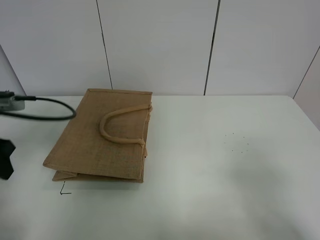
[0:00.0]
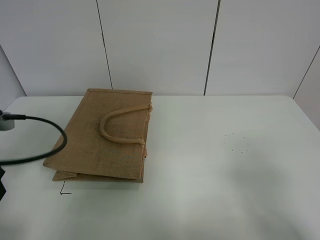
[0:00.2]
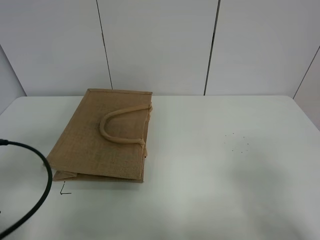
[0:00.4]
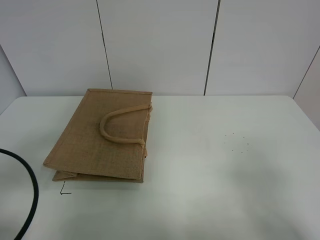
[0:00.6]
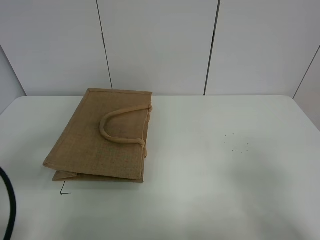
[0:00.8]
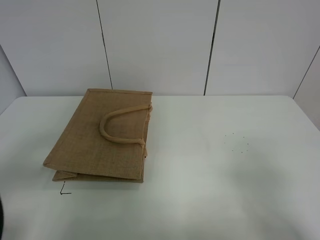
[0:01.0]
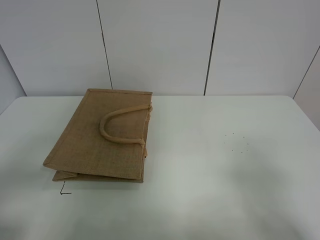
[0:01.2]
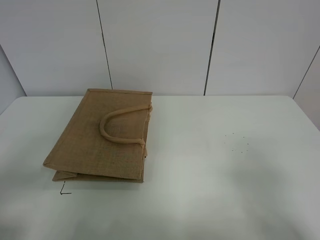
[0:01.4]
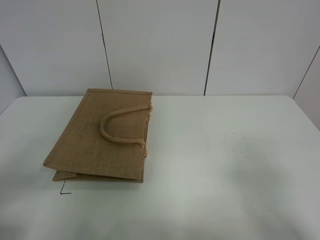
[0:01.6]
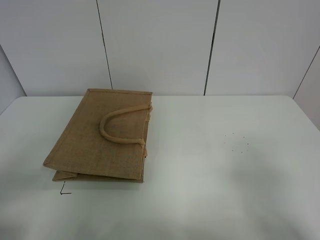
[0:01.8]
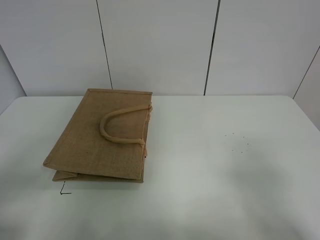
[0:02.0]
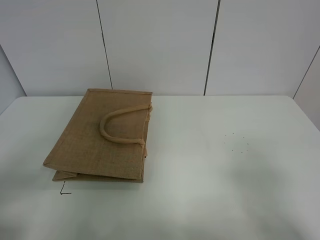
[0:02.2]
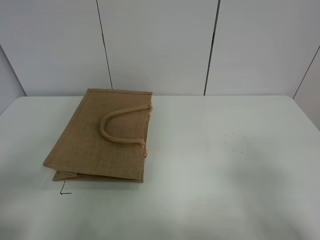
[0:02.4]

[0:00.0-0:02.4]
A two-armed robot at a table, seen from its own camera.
Task of the whole recording: open the brown linen bag and put the peach in the bag.
0:00.0 to 0:01.2: The left gripper travels backward by about 15 cm.

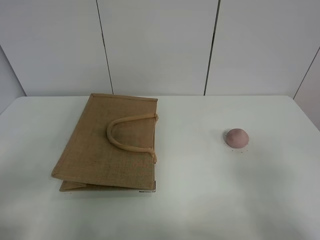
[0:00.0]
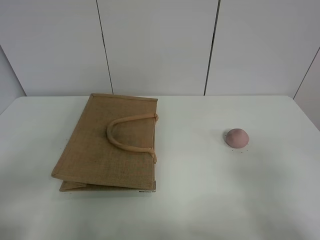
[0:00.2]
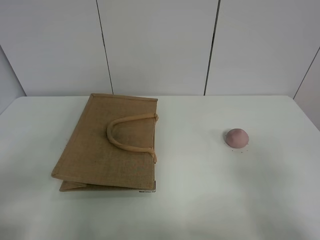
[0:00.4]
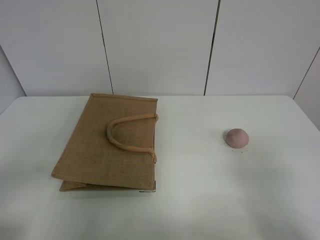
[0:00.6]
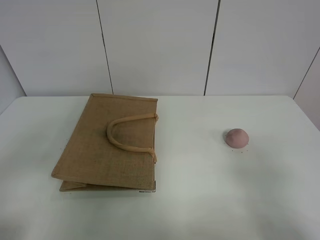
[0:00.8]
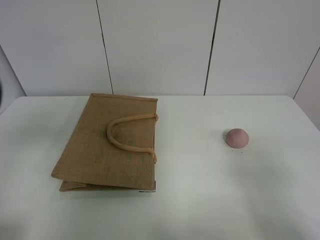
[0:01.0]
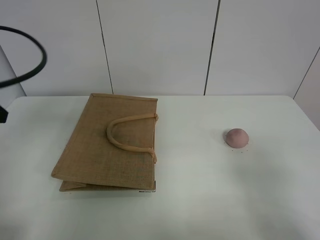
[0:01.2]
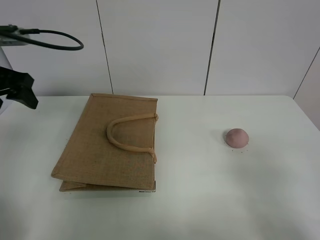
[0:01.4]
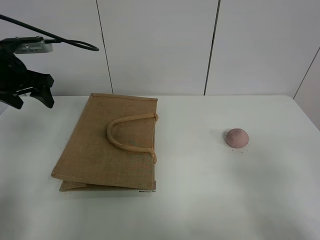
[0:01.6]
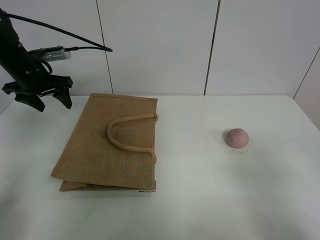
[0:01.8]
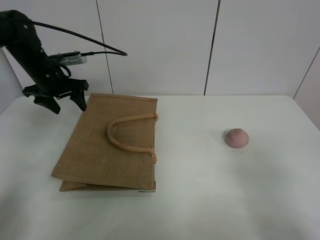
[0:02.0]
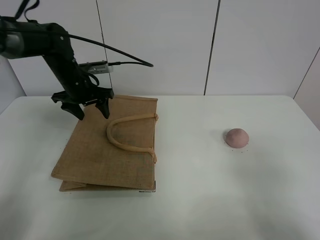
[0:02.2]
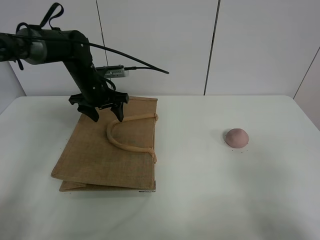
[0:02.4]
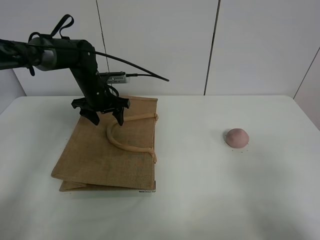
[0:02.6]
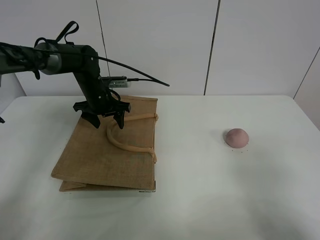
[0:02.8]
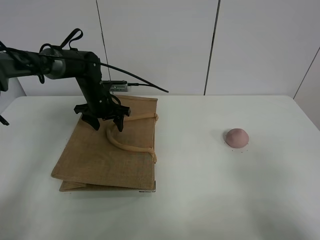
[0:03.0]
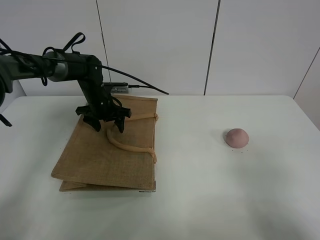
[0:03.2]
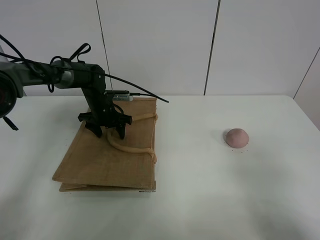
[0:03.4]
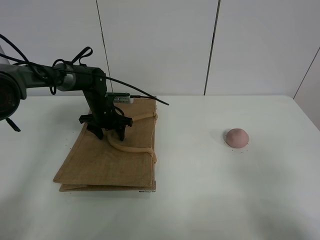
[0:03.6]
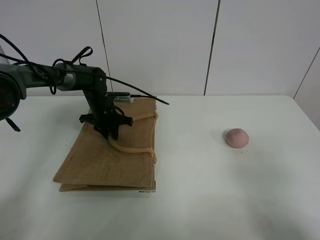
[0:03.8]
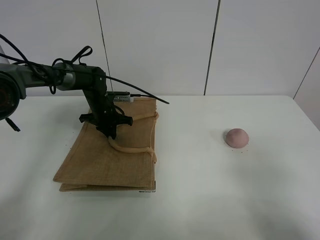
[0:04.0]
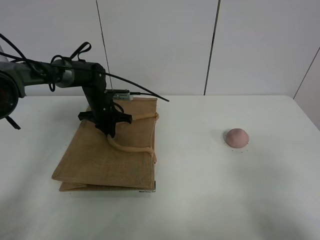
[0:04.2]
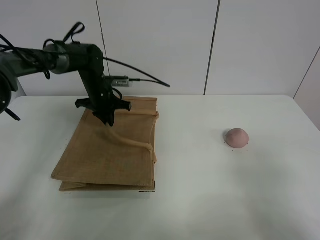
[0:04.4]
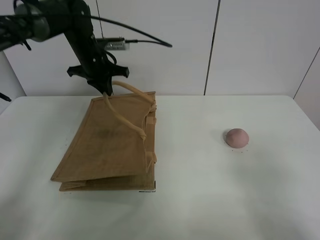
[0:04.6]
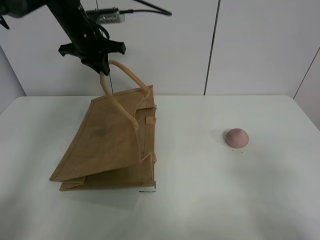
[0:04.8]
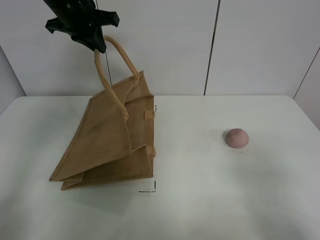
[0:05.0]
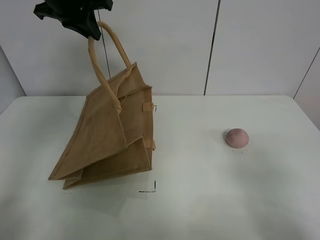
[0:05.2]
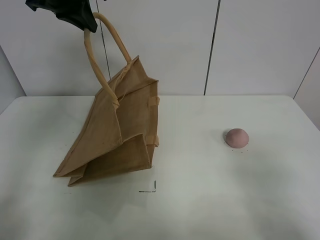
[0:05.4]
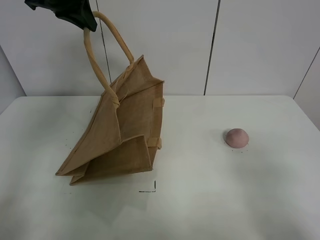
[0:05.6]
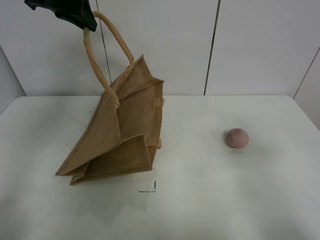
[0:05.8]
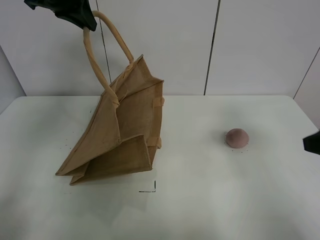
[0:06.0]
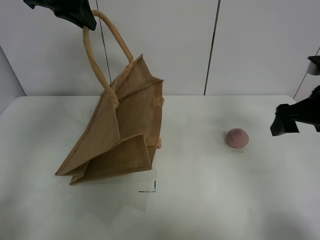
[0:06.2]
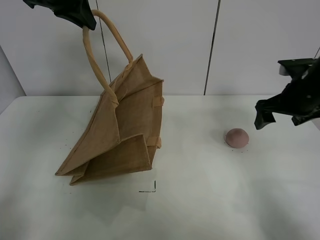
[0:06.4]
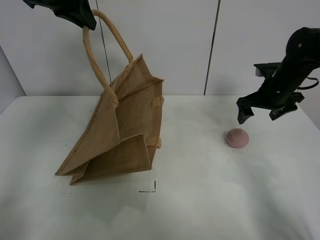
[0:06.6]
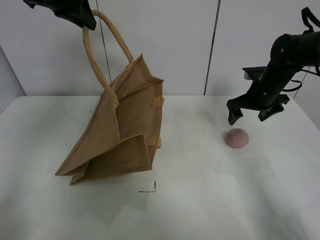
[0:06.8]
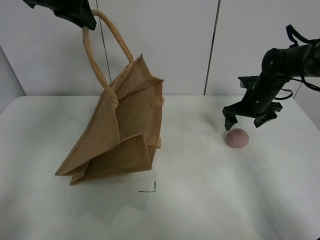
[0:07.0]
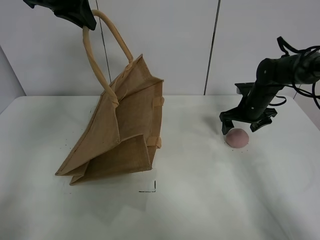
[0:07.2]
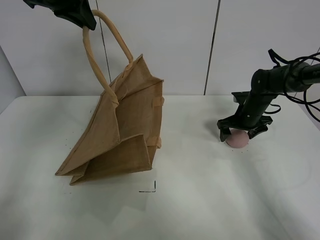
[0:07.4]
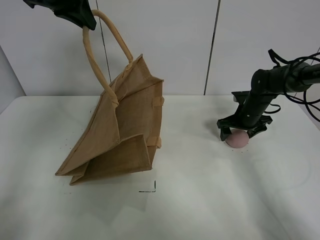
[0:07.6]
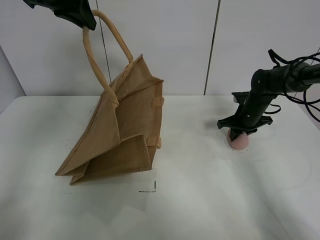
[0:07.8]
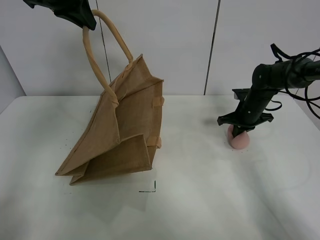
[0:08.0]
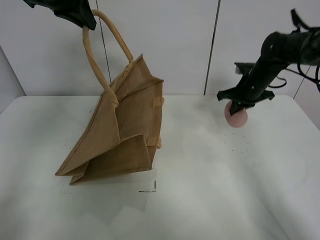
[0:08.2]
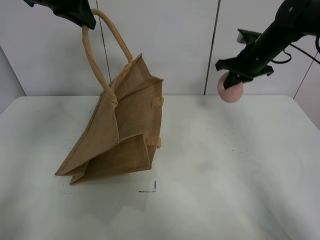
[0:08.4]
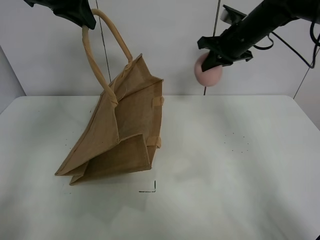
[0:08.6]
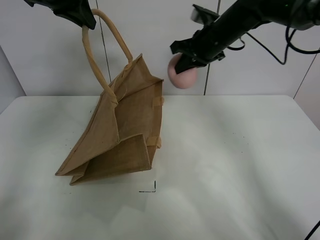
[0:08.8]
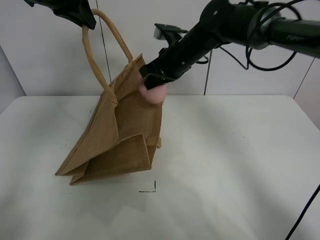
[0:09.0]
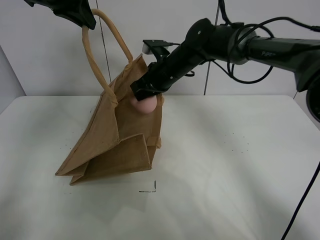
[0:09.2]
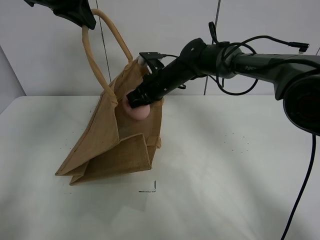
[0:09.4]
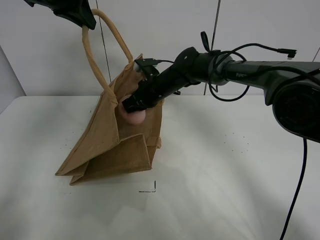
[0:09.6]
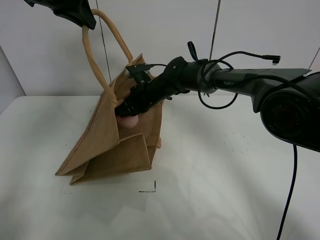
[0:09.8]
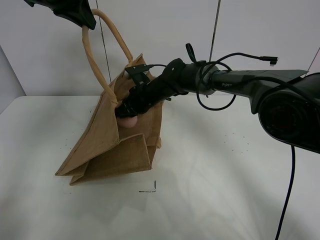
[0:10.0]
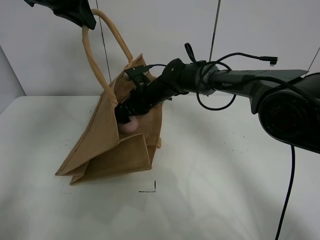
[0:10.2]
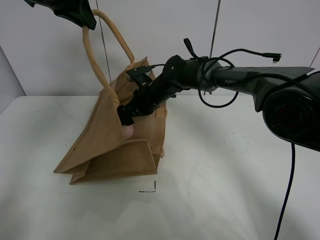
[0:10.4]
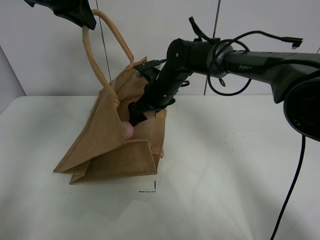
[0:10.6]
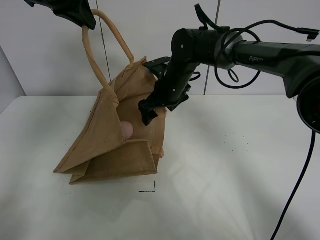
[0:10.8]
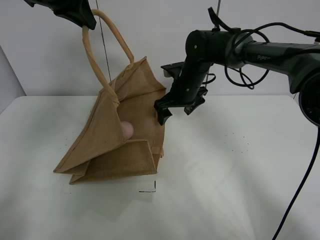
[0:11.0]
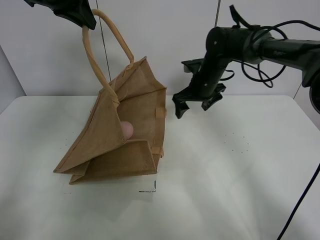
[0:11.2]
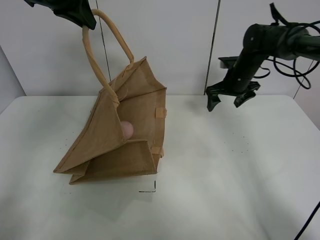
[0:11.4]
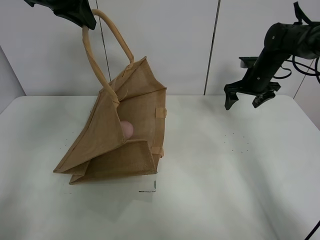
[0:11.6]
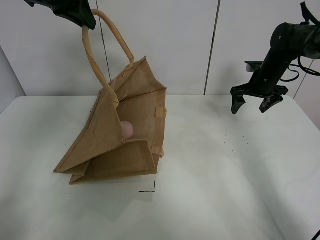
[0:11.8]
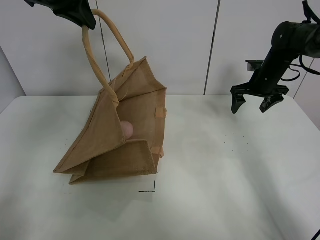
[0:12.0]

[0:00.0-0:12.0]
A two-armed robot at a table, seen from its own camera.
Task of the whole recording: open the brown linen bag and put the peach in the bag.
Step, 0:00.0 to 0:05.2: Lift the handbag with left gripper.
Step, 0:05.4 to 0:07.8: Grasp the peach with right gripper.
Step, 0:08.0 to 0:11.0: Place the peach in the handbag with right gripper.
0:00.0 to 0:01.6: The left gripper goes approximately 35 cm forward.
0:01.6 to 0:03.0: The left gripper travels downward, to the right and forward by approximately 20 cm.
0:03.0 to 0:04.4: The left gripper closes up.
0:04.4 to 0:06.0: The right gripper heads forward, covering approximately 15 cm. Meanwhile the left gripper goes approximately 25 cm upward.
0:06.0 to 0:07.6: The right gripper travels forward and downward by roughly 35 cm.
0:07.6 to 0:09.0: The right gripper moves to the left and upward, approximately 25 cm, and closes up.
0:09.0 to 0:10.4: The right gripper heads downward and to the left, covering some 10 cm, and opens its fingers.
0:10.4 to 0:12.0: The right gripper goes some 30 cm to the right.

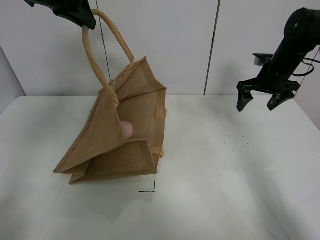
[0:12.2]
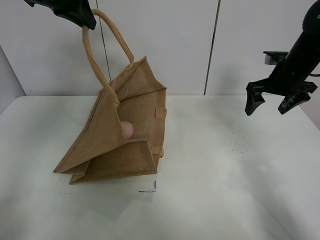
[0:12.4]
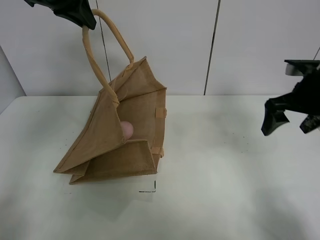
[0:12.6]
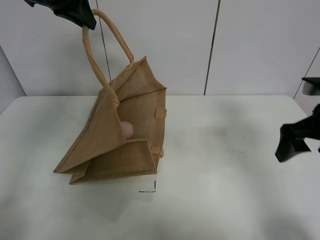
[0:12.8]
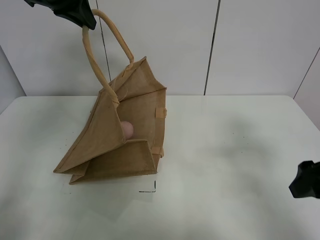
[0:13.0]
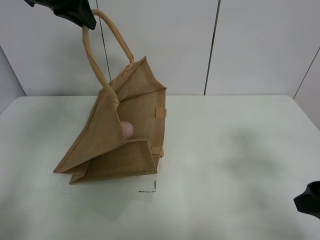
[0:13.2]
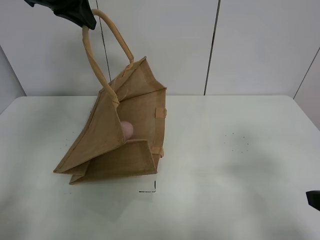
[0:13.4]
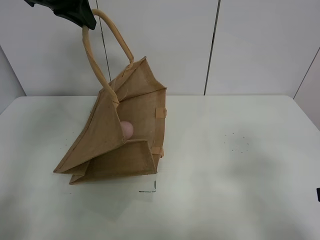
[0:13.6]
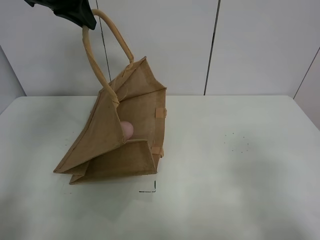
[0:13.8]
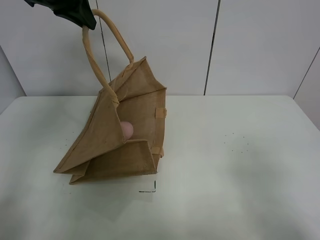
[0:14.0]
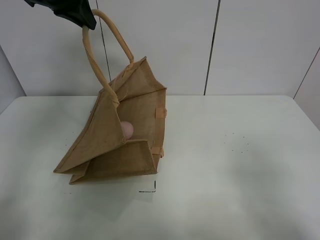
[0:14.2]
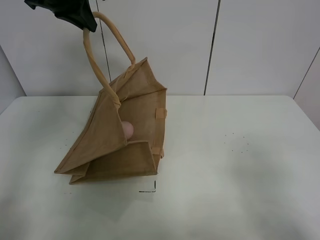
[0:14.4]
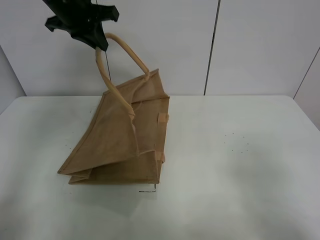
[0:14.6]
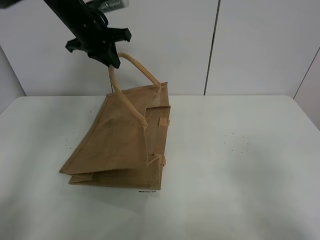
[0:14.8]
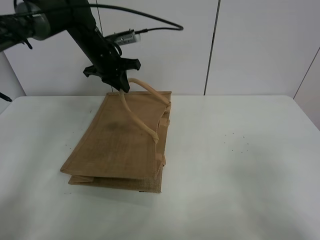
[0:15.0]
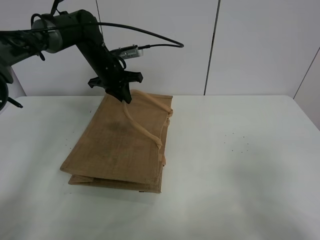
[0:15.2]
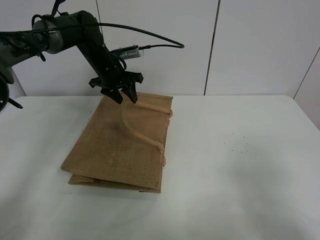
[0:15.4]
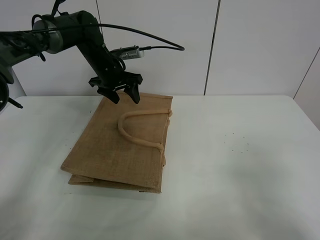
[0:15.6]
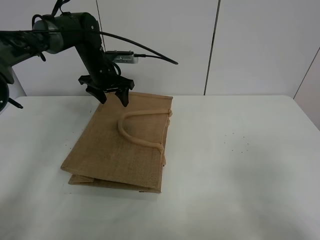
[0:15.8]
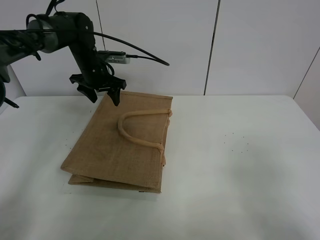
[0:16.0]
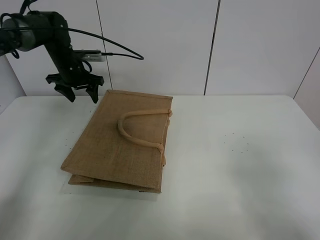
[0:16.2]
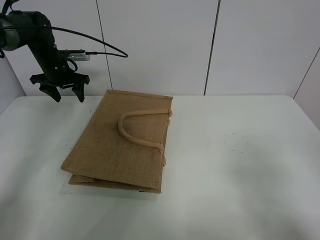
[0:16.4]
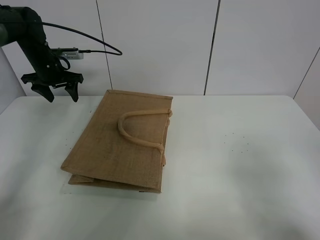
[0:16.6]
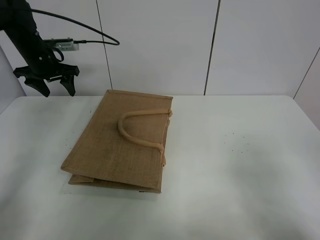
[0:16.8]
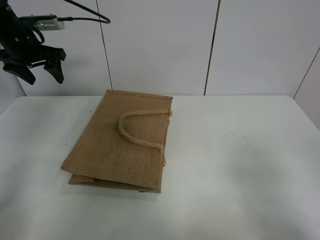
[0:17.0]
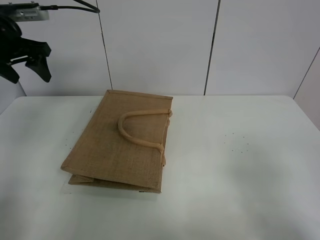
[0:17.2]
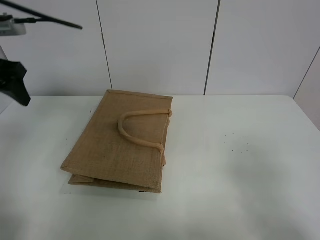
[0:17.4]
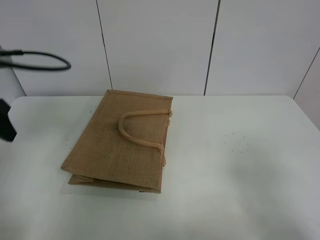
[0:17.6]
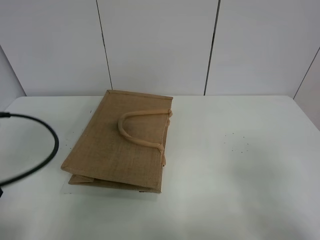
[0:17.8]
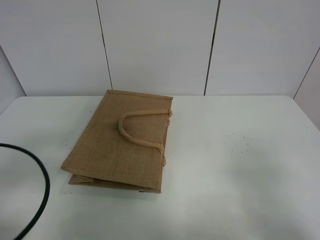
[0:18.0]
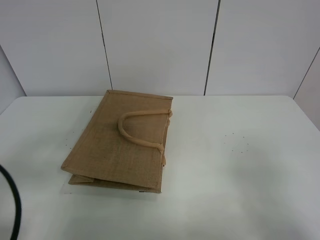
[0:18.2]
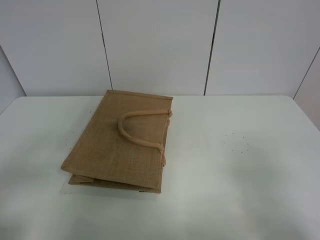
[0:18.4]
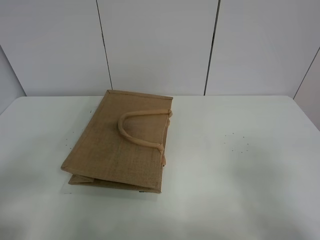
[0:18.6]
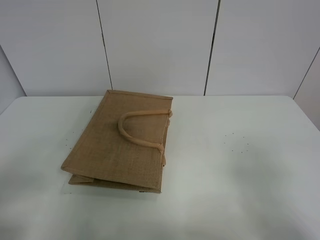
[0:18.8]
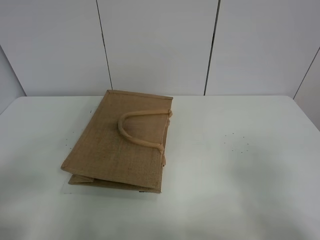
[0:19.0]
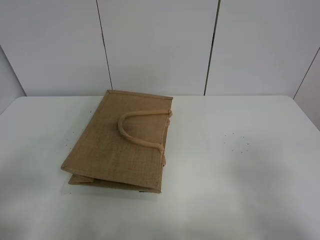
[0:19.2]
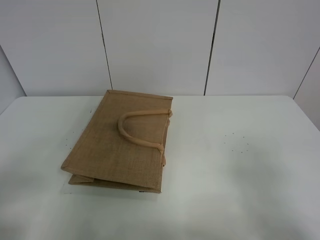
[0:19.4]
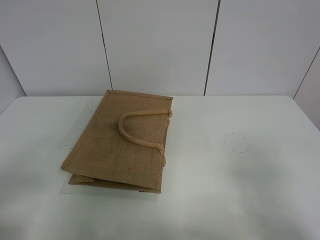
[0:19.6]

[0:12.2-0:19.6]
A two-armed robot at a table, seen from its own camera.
Task of the whole recording: open the brown linen bag and put the peach in the bag.
Step, 0:12.2 to 0:16.2: Put down the handbag with left grippe.
0:12.2 to 0:13.6: The right gripper is displaced backward by some 35 cm.
0:13.6 to 0:15.2: The left gripper travels downward and forward by about 20 cm, while the right gripper is displaced backward by some 5 cm.
0:15.2 to 0:16.6: The left gripper moves to the left, about 15 cm, and opens its fingers.
0:16.6 to 0:18.2: The left gripper moves backward, some 40 cm.
0:18.2 to 0:19.6: The left gripper moves backward, approximately 5 cm.
